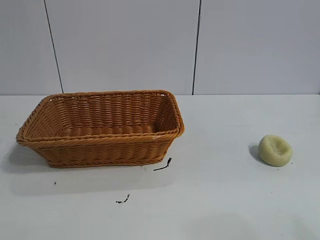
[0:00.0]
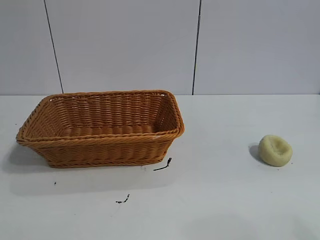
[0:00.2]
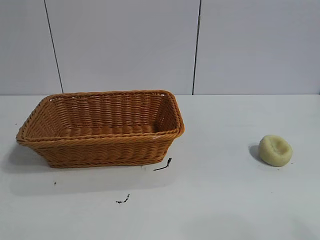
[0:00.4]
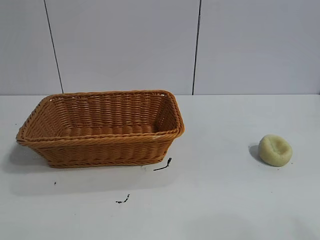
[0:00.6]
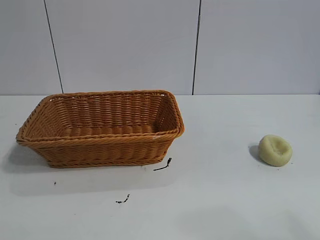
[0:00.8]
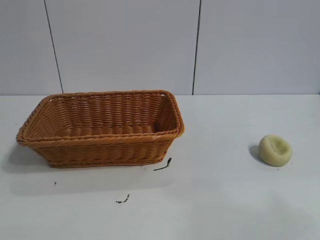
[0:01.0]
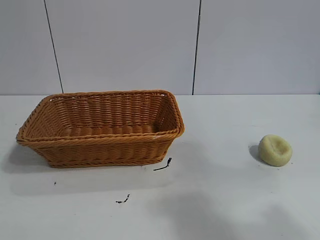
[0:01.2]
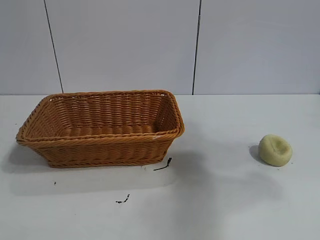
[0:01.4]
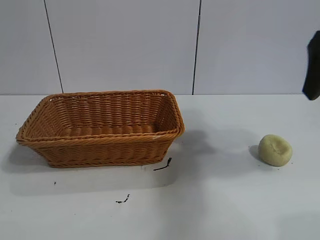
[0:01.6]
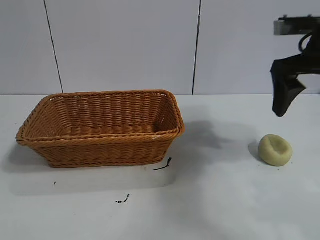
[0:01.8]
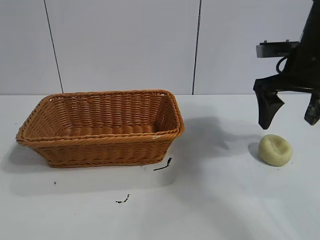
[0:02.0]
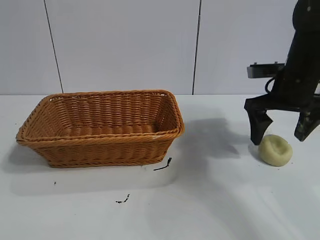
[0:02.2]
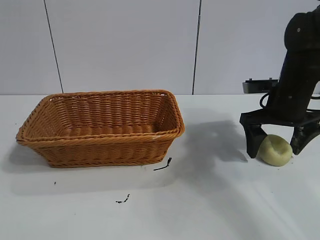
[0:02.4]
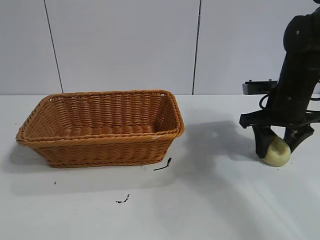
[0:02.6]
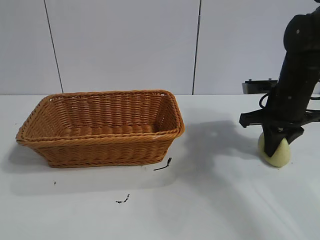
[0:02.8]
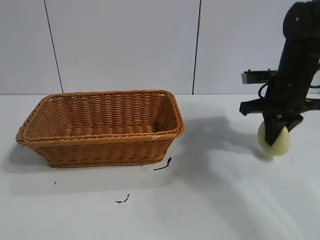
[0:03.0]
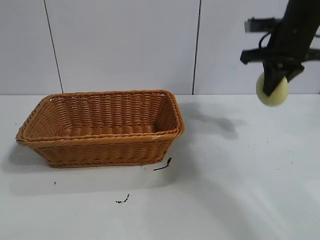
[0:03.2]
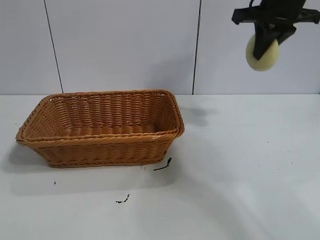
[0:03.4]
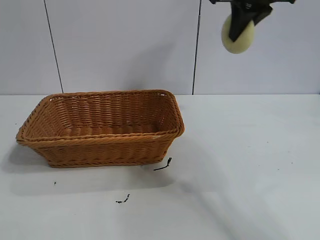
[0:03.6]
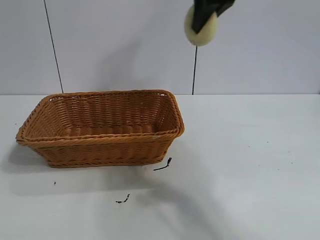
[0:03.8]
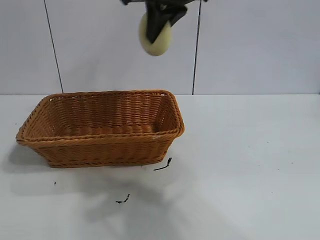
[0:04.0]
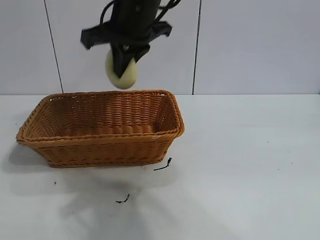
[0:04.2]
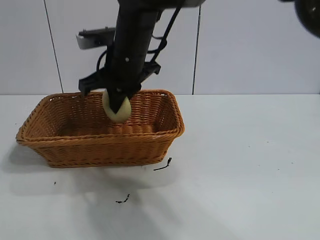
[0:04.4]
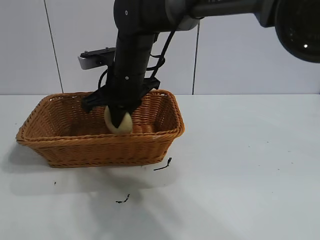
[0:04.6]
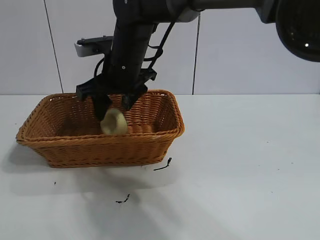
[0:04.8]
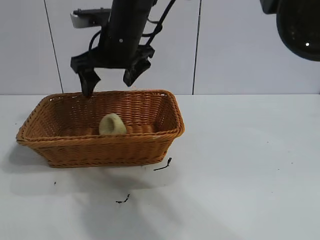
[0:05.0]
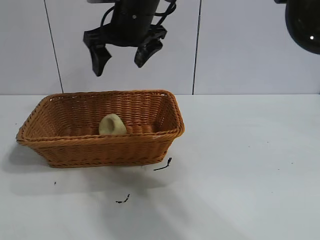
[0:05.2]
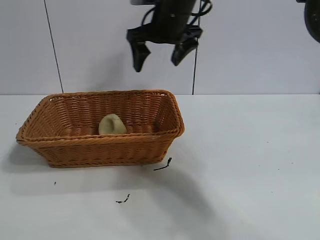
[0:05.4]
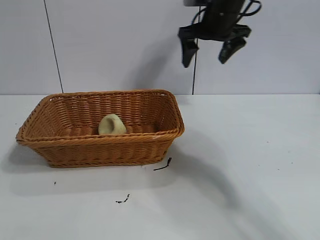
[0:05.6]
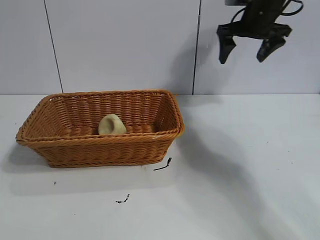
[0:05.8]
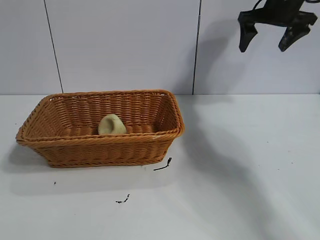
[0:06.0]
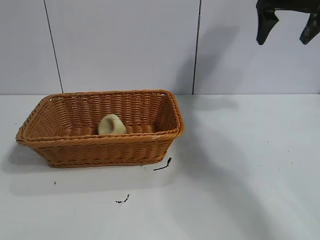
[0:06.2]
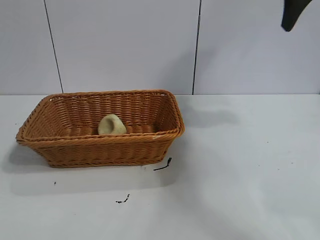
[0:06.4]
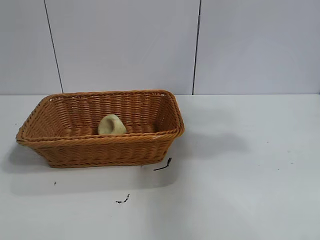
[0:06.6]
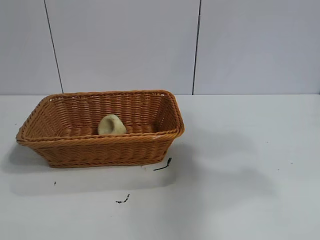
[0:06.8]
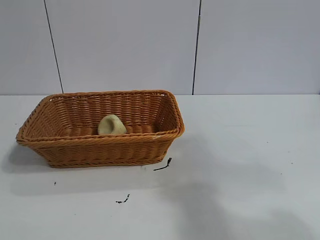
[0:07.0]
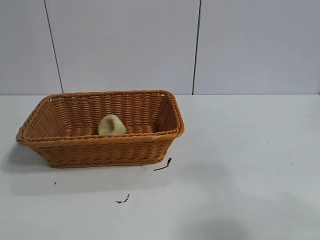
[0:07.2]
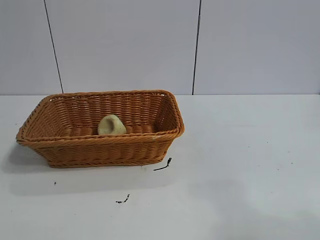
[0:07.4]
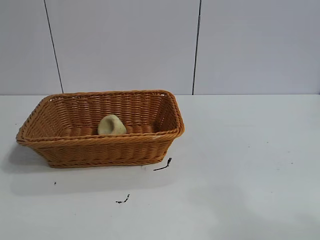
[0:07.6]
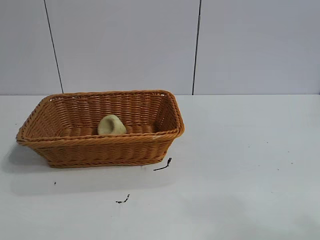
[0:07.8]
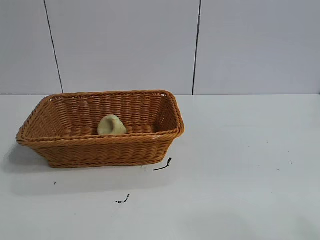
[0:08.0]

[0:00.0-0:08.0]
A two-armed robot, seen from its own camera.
Task of the whole recording: pick up the egg yolk pastry and put it into the basket.
Step, 0:01.0 to 0:02.6: Grasp egg yolk pastry with right gripper.
Step, 0:02.8 to 0:04.8: Place the egg yolk pastry in the basket with right gripper.

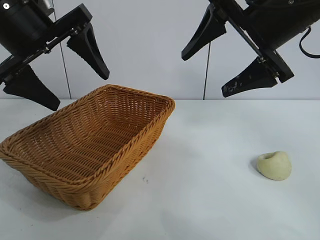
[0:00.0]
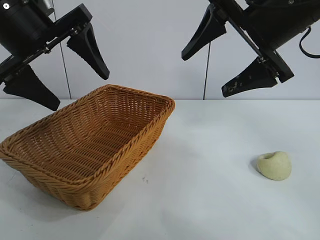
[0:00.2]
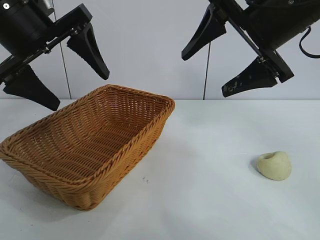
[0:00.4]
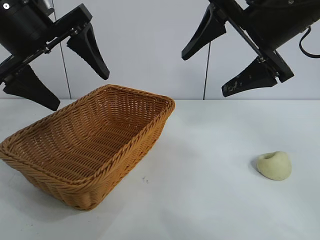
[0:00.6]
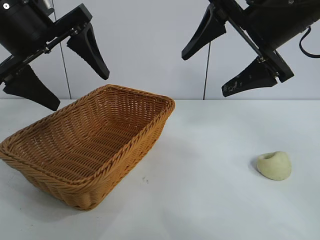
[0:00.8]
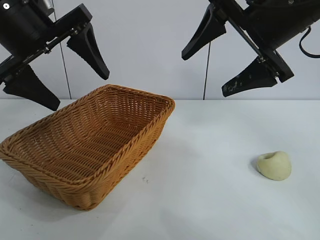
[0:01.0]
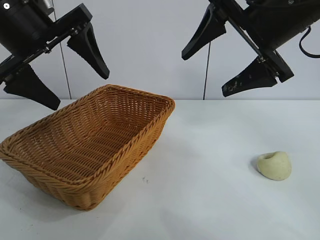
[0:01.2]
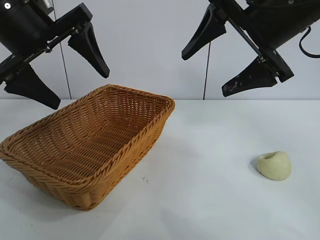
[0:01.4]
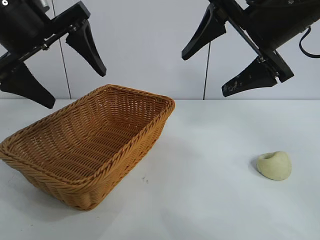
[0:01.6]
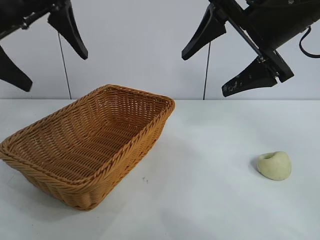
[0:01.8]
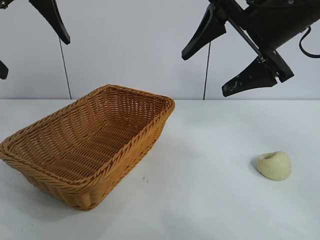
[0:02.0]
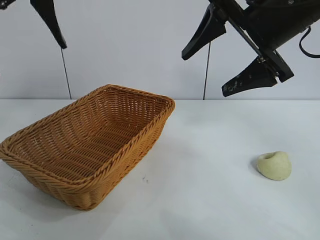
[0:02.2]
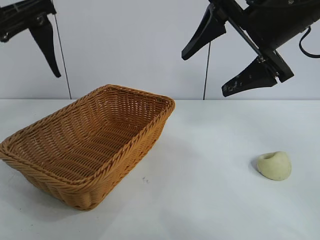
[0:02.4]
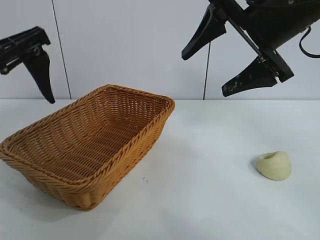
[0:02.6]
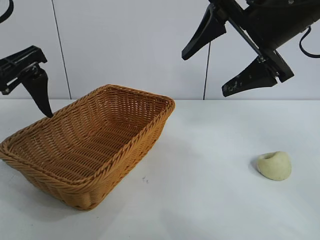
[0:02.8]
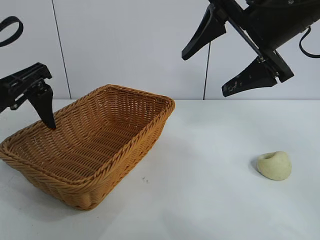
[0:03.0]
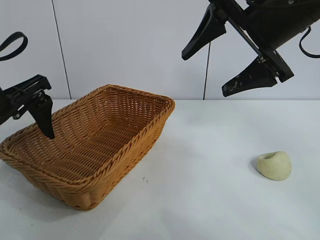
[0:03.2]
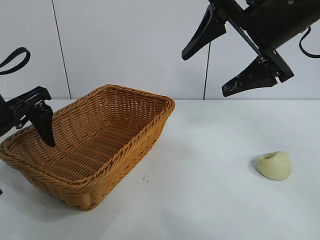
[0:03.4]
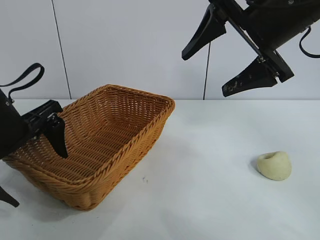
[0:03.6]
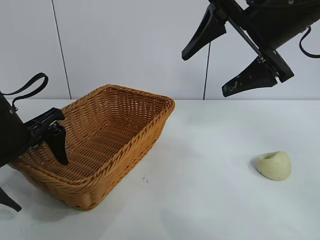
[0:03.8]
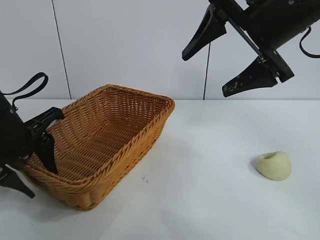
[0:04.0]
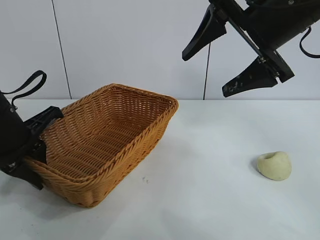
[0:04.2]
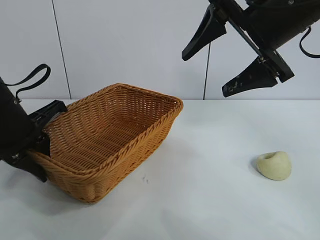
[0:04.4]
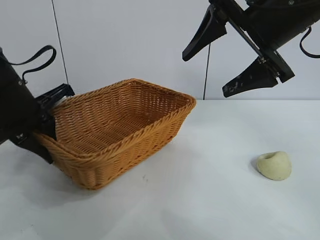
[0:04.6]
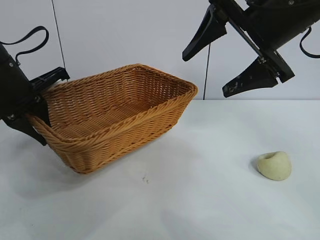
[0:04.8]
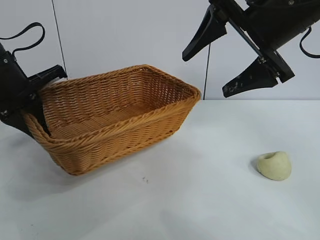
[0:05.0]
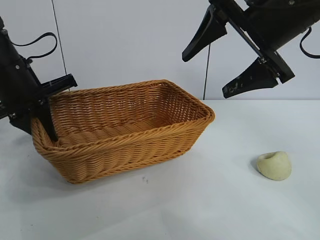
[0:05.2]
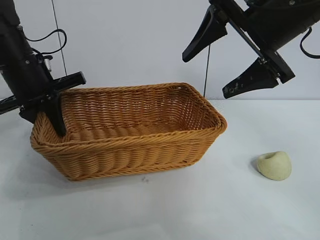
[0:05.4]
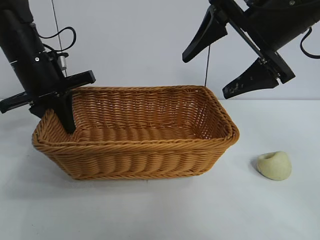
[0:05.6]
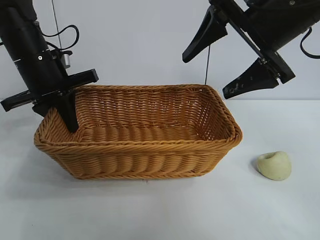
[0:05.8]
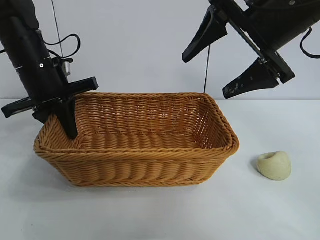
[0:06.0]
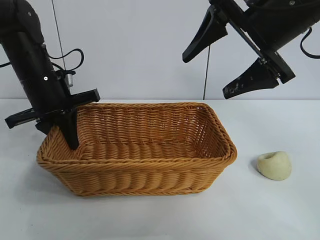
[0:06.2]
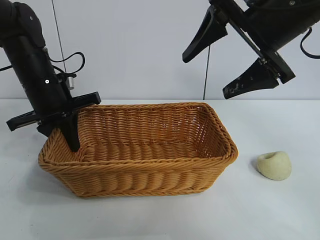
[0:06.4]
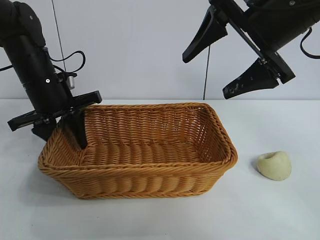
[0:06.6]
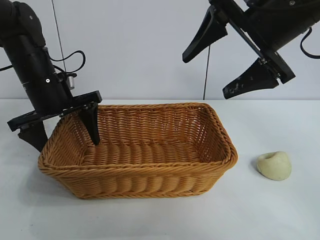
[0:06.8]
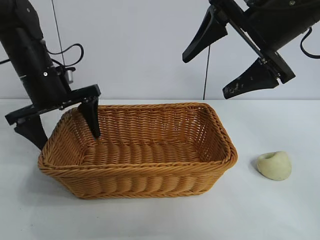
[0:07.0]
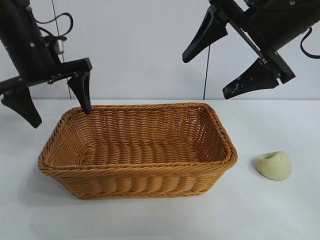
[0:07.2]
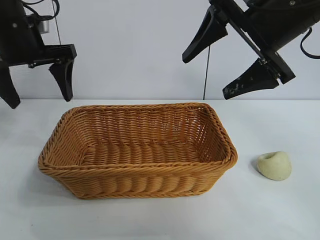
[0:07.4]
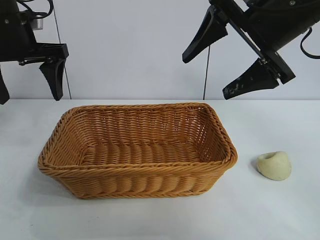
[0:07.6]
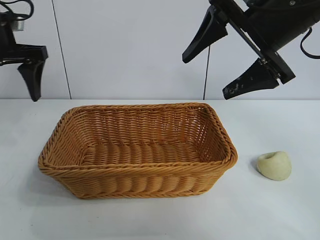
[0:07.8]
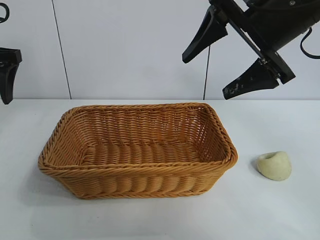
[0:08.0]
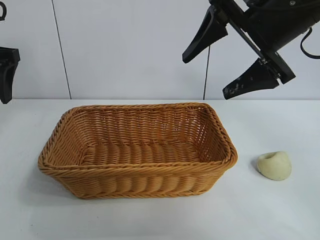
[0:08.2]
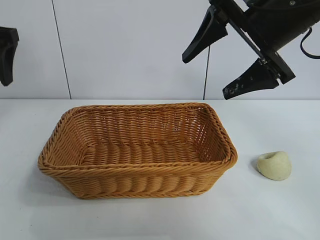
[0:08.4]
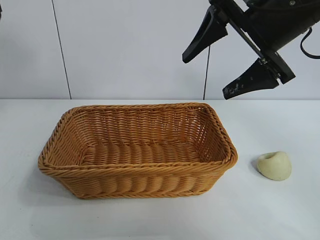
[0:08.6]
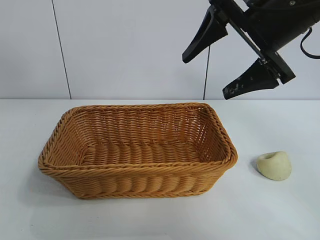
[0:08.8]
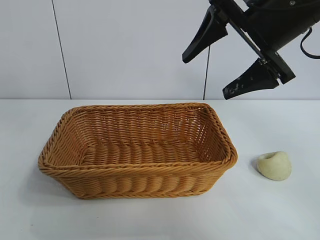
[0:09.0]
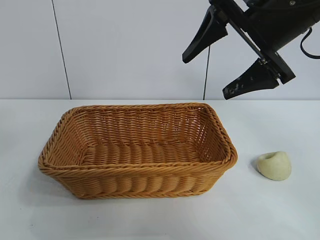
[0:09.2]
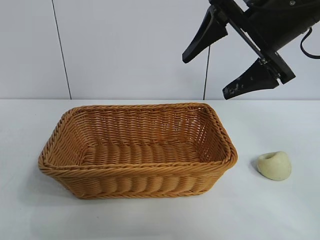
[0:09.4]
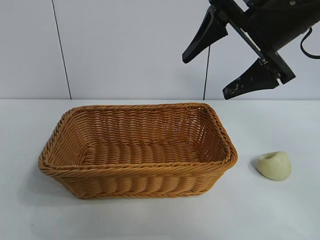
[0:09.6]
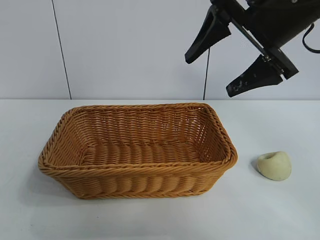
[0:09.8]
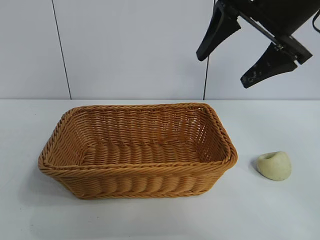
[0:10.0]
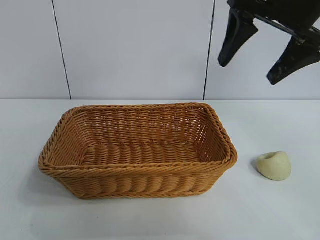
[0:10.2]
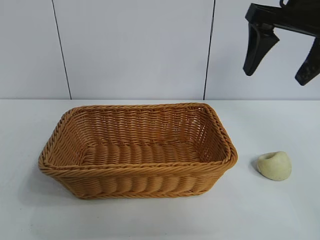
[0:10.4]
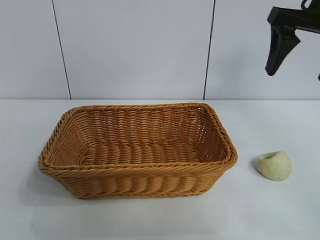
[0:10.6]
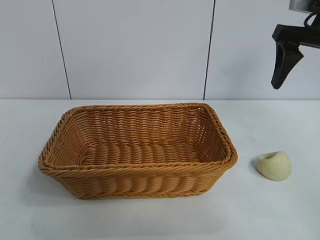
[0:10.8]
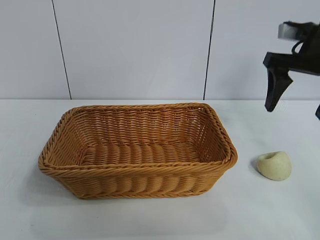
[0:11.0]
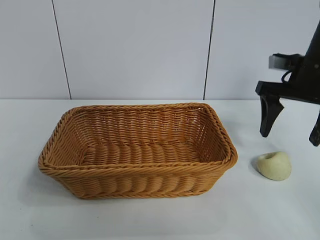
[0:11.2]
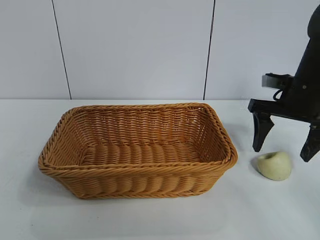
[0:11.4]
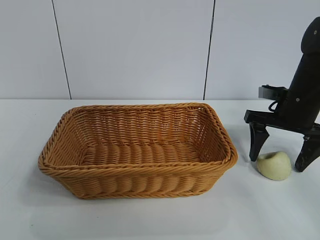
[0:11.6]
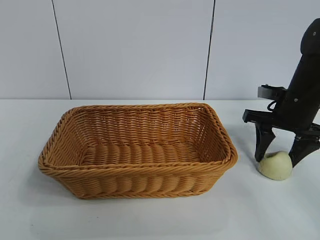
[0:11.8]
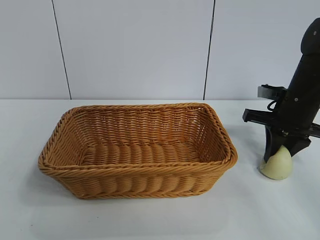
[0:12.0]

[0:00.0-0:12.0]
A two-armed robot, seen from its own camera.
Task of the whole recording: pick up the egg yolk pastry and put it into the basket.
Step, 0:01.2 to 0:04.2: Grasp the basket with left gripper.
Step, 0:04.4 to 0:06.6: Place the basket in the center of view with left gripper.

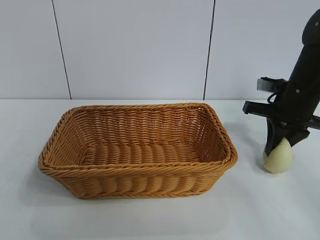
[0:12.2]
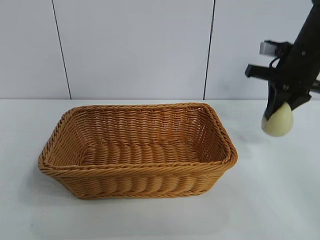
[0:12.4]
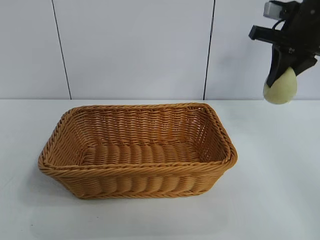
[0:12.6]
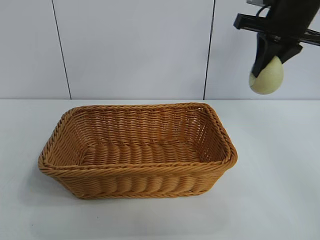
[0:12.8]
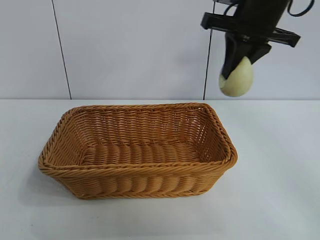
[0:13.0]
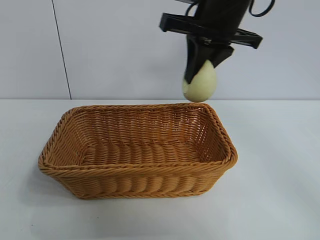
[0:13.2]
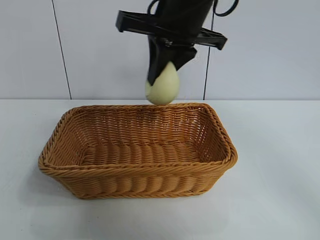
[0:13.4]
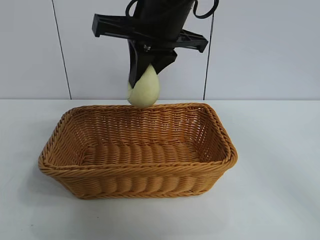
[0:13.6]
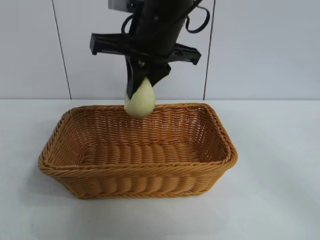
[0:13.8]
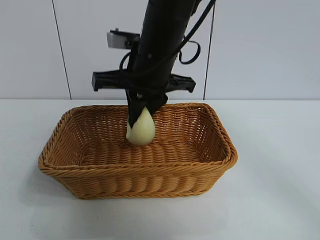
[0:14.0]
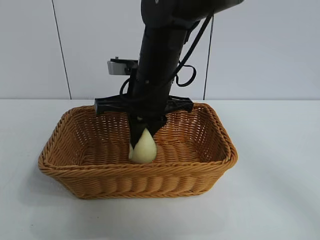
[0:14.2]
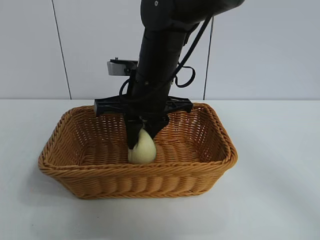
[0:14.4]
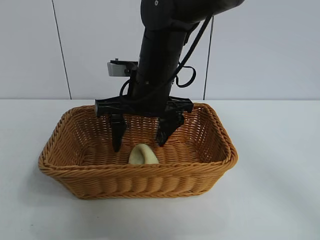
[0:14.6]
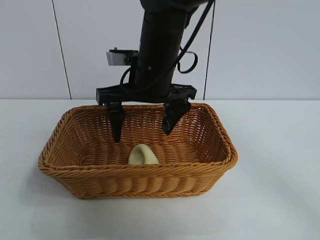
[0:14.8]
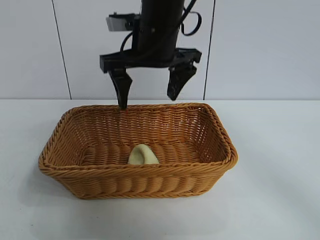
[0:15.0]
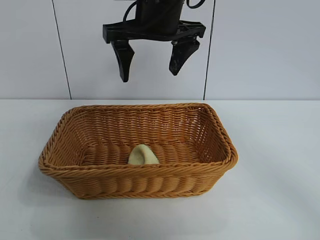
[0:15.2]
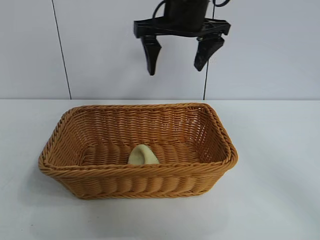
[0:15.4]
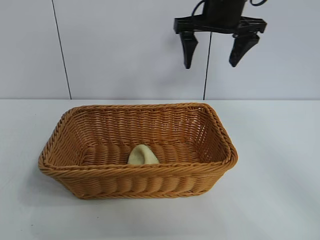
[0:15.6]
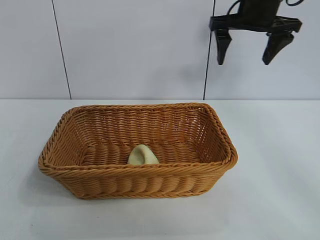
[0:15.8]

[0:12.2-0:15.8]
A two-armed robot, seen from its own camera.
Task of the whole recording: pick up the egg yolk pastry and put it into the basket.
Step, 0:12.2 to 0:14.6: Place the egg yolk pastry in the basket with right gripper.
